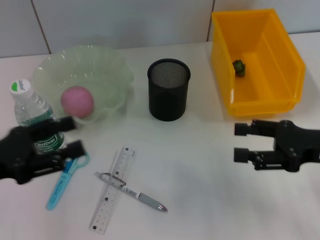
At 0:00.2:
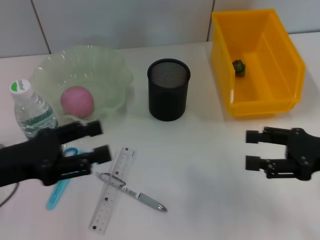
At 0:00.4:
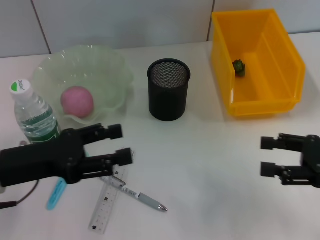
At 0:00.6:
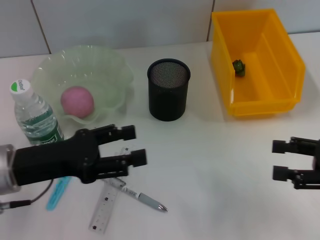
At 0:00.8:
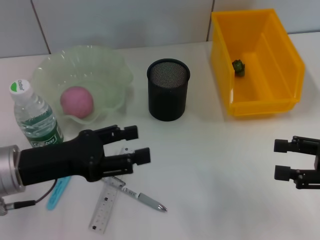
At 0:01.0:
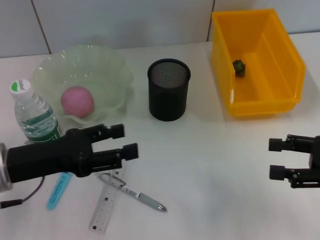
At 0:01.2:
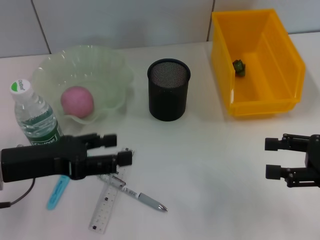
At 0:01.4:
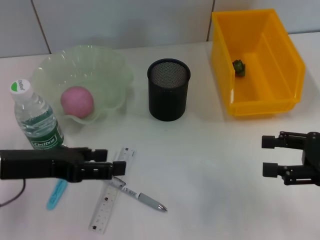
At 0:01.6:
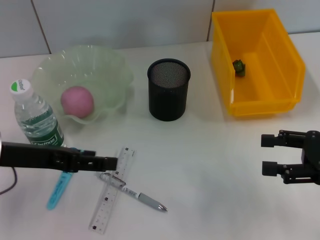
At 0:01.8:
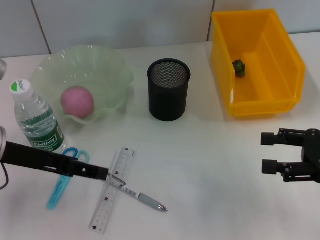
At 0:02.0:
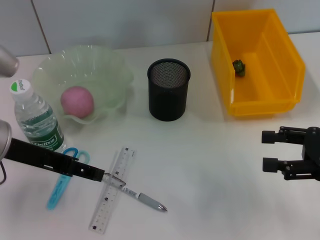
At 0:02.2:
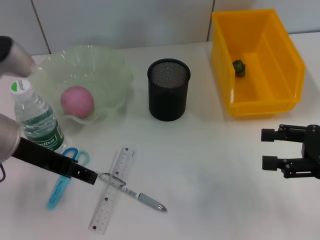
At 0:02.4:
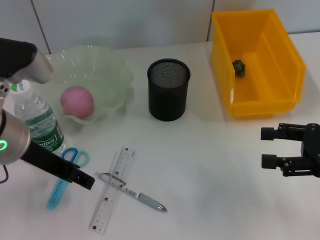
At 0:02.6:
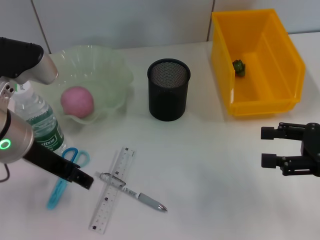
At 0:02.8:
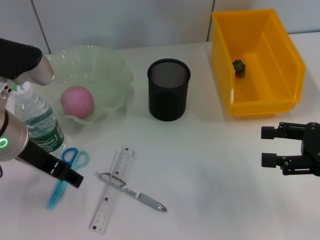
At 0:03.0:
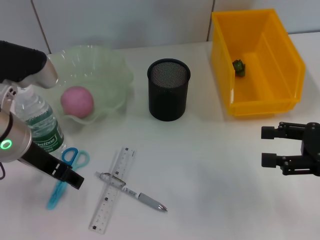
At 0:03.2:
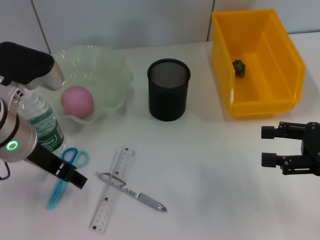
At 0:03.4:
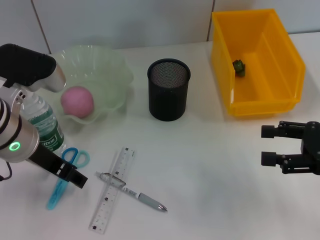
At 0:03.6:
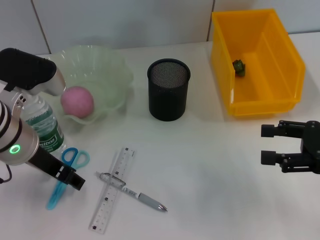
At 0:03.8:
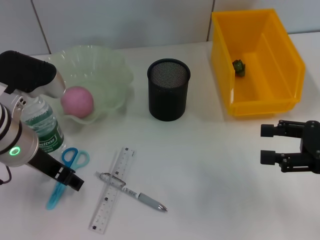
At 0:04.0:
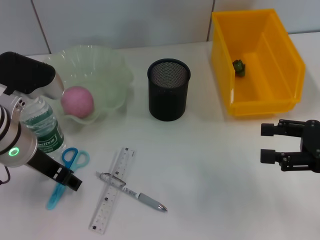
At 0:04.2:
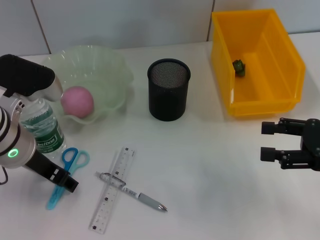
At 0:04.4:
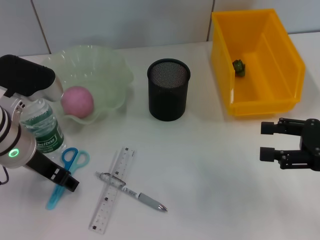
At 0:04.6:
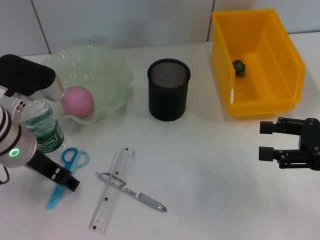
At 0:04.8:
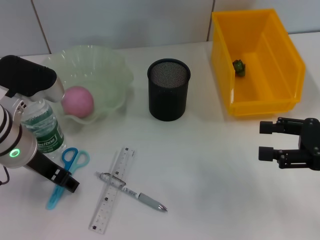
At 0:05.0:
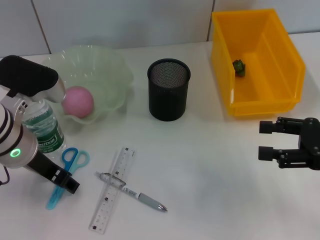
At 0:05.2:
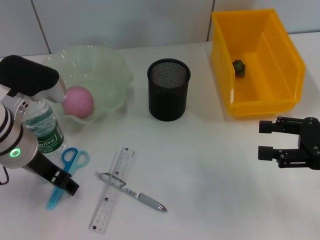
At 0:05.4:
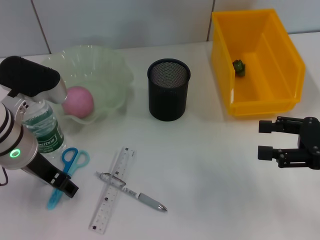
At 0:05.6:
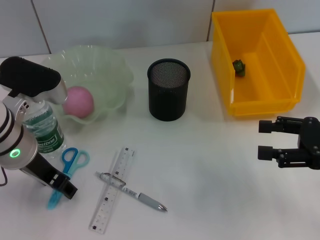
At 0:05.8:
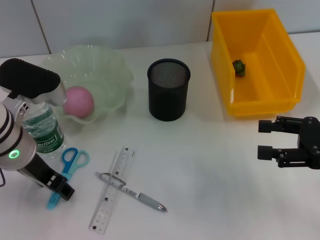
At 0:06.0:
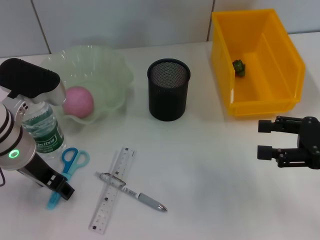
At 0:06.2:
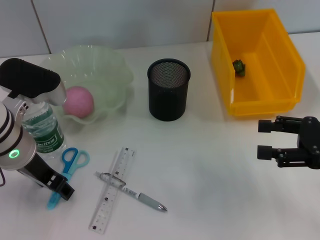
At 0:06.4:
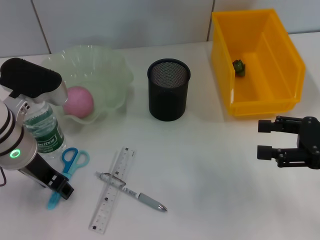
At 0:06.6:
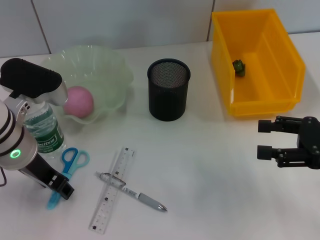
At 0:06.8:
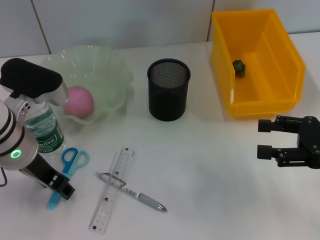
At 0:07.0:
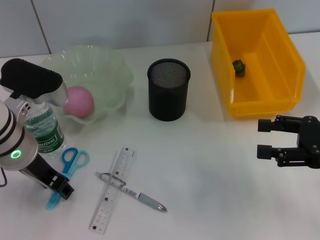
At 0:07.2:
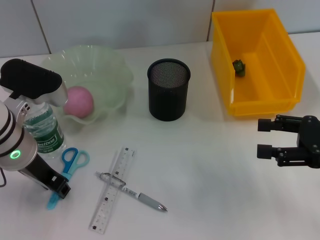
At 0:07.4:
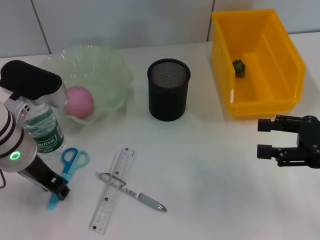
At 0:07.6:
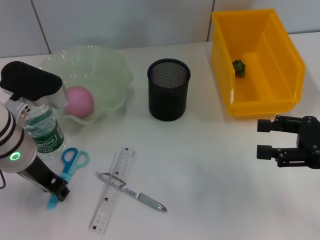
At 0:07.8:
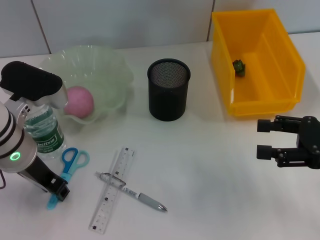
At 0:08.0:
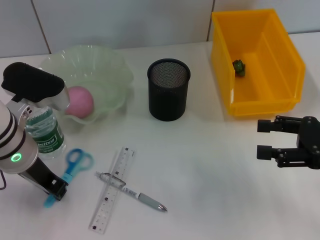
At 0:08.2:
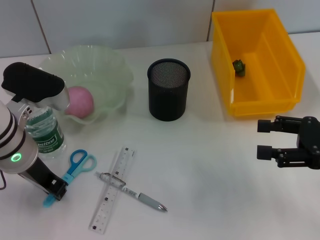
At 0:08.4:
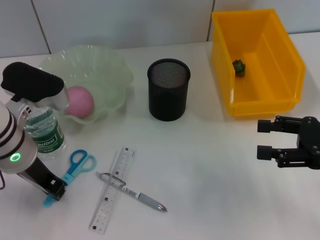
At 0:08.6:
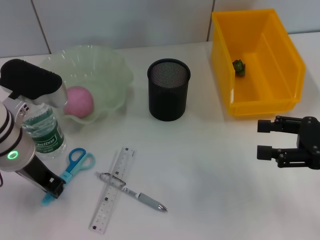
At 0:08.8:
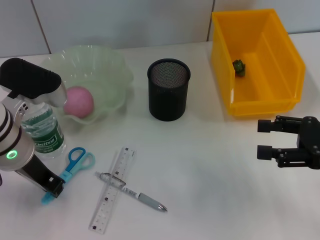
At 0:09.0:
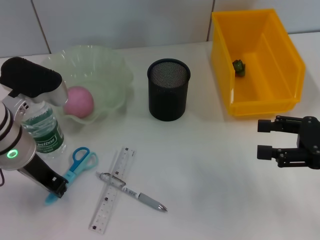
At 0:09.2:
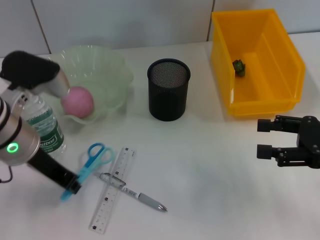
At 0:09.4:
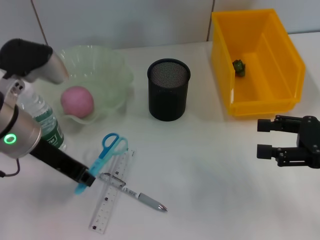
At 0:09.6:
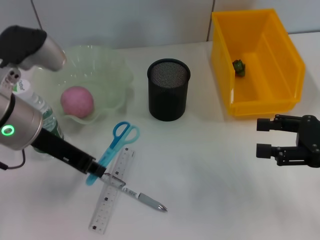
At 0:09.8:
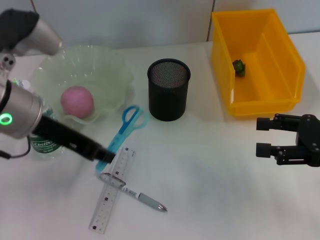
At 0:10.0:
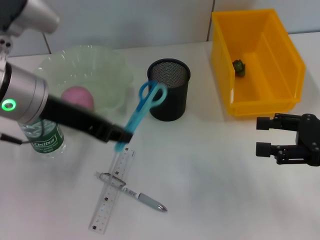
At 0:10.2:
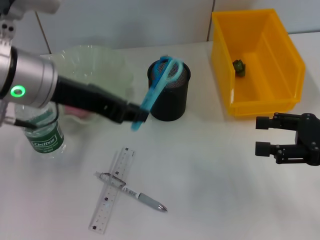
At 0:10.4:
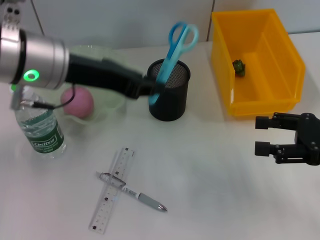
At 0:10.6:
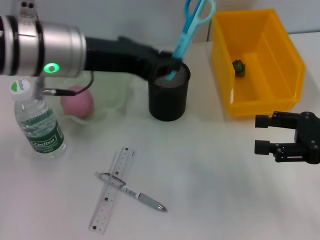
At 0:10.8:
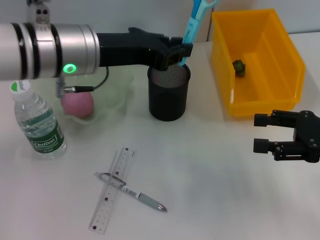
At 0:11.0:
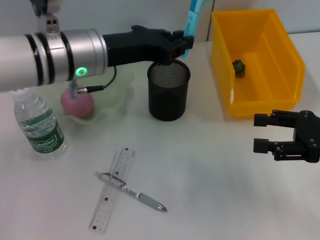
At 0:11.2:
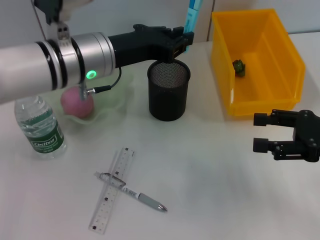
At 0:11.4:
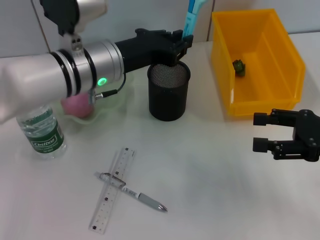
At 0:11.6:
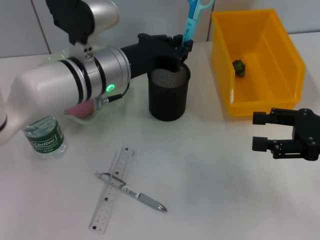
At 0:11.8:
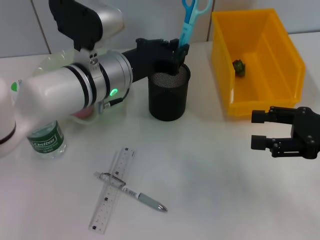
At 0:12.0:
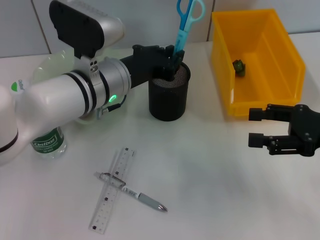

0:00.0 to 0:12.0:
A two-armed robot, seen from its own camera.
Step, 0:00.0 to 0:08.6: Grab the blue scissors with the left hand.
0:00.0 to 0:01.6: The left gripper is displaced to the right by about 5 cm.
0:01.6 to 0:03.0: The left gripper moves about 5 cm.
0:03.0 to 0:04.4: The grippers move only a little.
0:04.4 to 0:06.0: Both grippers stay put.
0:06.0 to 0:07.6: The left gripper closes.
0:07.6 to 0:09.0: Neither gripper changes place.
0:09.0 to 0:10.4: The left gripper is displaced upward by roughly 10 cm.
0:10.4 to 0:12.0: The left gripper moves downward and to the right, some 10 cm.

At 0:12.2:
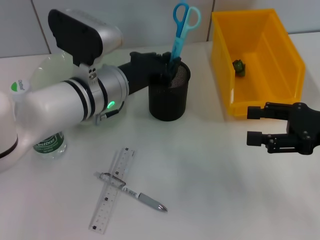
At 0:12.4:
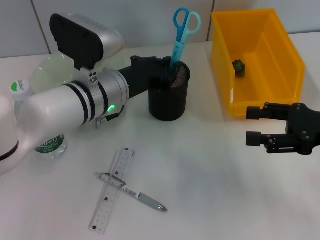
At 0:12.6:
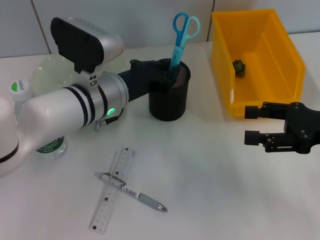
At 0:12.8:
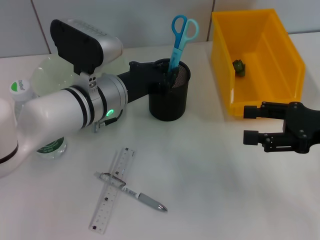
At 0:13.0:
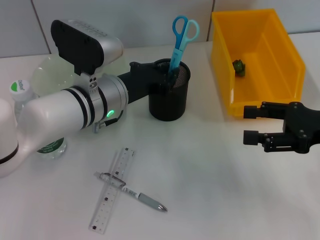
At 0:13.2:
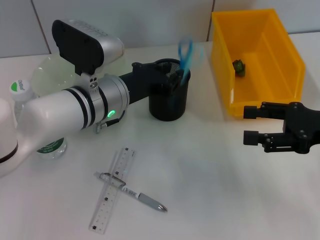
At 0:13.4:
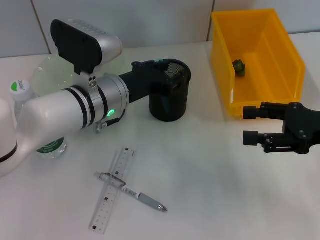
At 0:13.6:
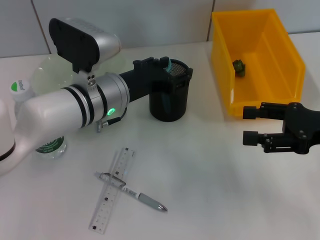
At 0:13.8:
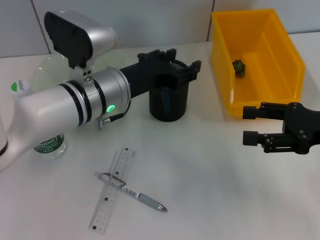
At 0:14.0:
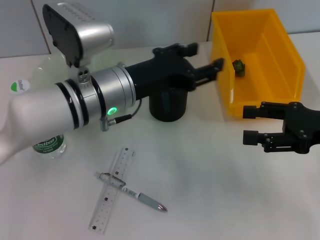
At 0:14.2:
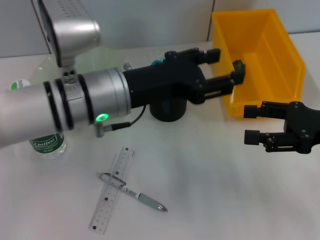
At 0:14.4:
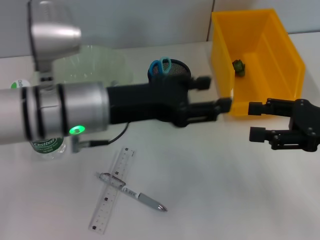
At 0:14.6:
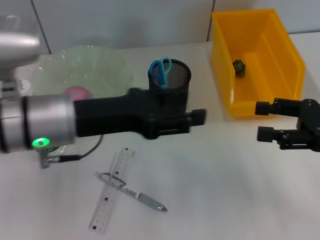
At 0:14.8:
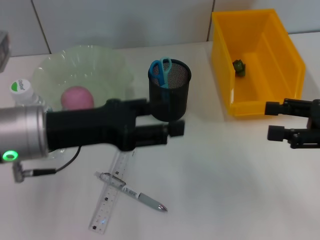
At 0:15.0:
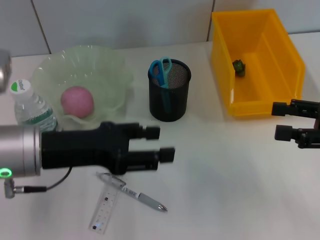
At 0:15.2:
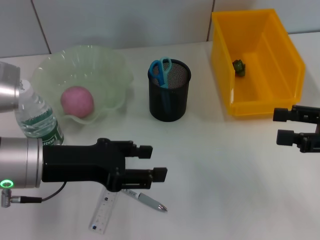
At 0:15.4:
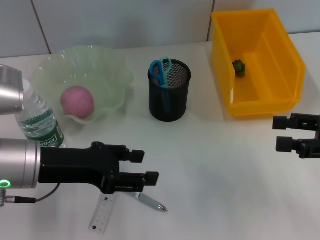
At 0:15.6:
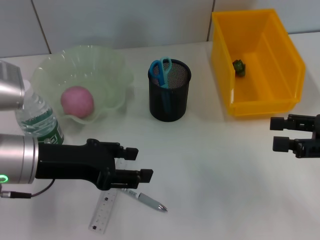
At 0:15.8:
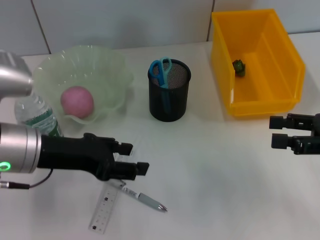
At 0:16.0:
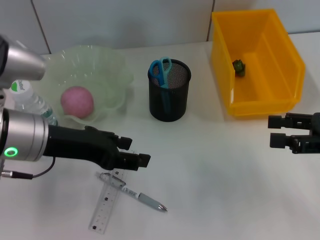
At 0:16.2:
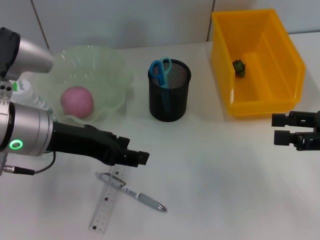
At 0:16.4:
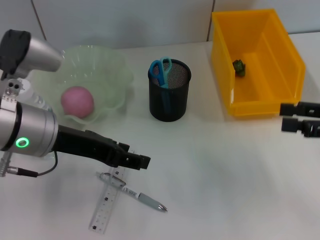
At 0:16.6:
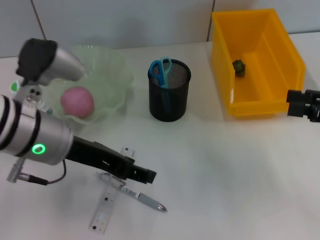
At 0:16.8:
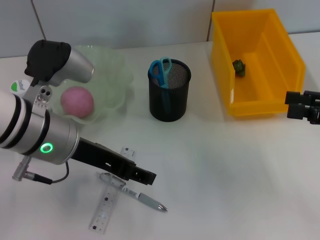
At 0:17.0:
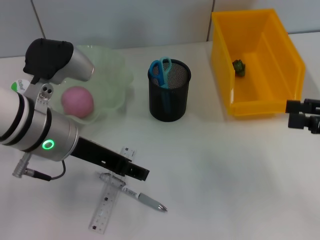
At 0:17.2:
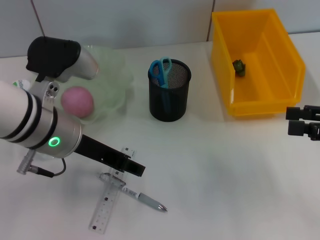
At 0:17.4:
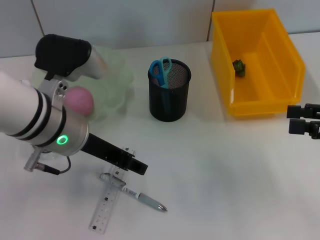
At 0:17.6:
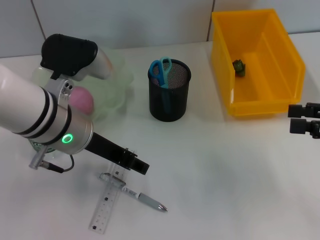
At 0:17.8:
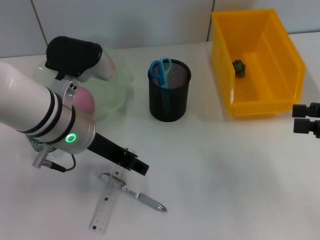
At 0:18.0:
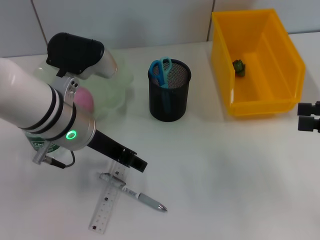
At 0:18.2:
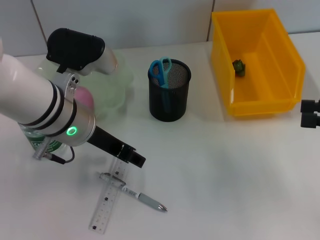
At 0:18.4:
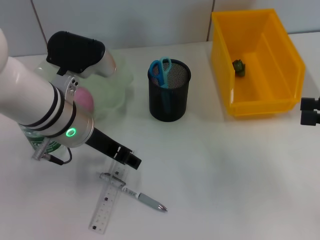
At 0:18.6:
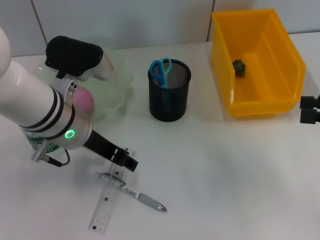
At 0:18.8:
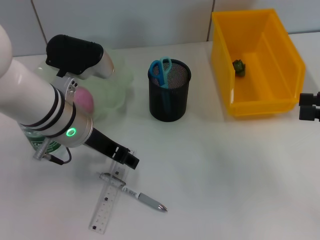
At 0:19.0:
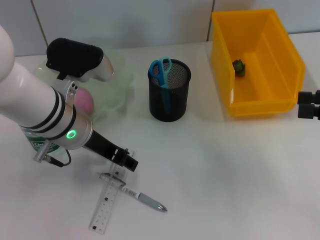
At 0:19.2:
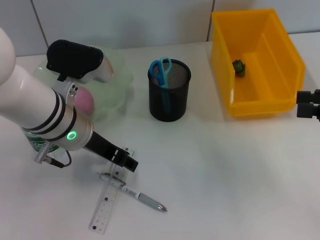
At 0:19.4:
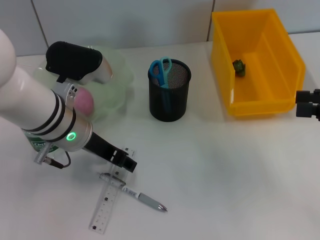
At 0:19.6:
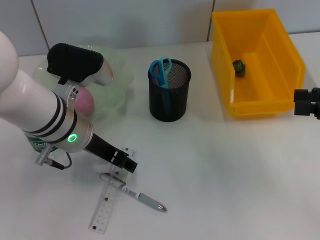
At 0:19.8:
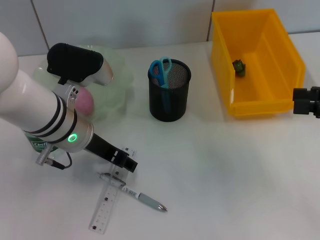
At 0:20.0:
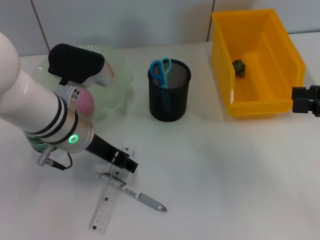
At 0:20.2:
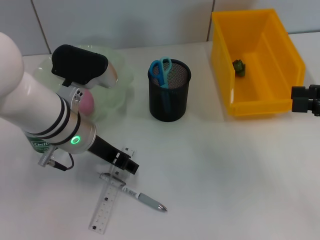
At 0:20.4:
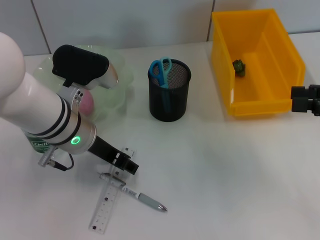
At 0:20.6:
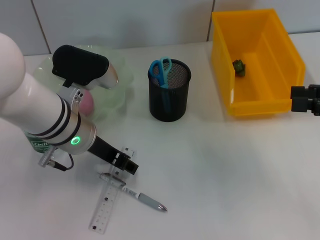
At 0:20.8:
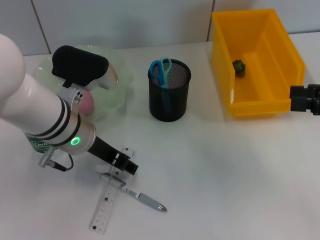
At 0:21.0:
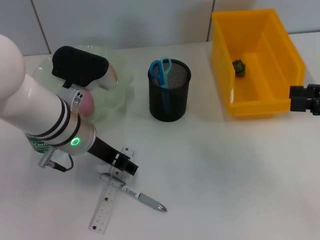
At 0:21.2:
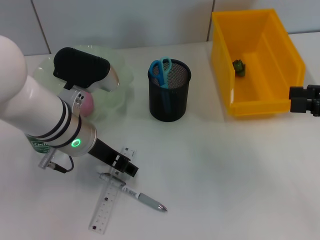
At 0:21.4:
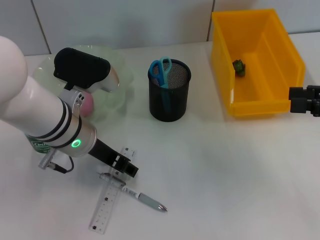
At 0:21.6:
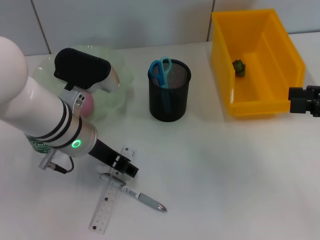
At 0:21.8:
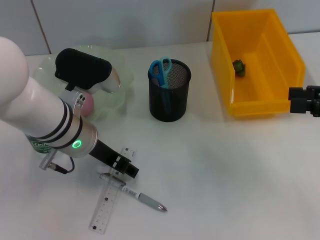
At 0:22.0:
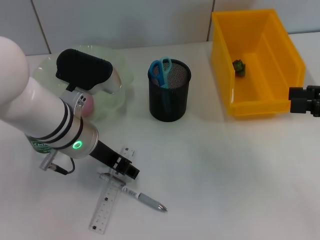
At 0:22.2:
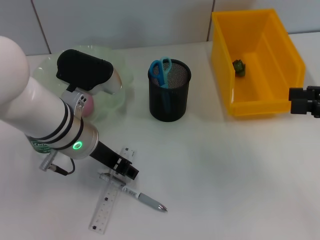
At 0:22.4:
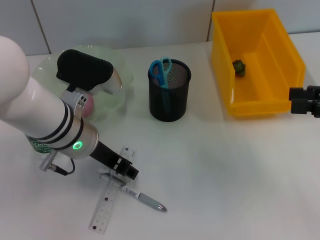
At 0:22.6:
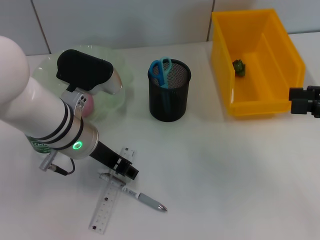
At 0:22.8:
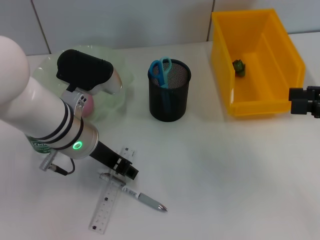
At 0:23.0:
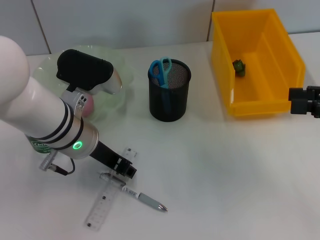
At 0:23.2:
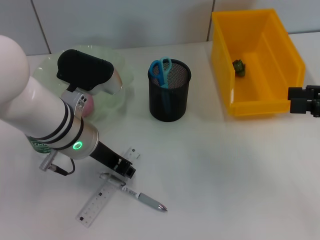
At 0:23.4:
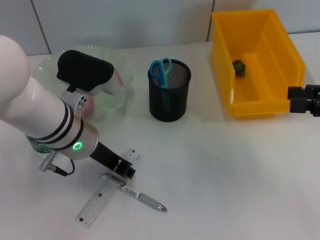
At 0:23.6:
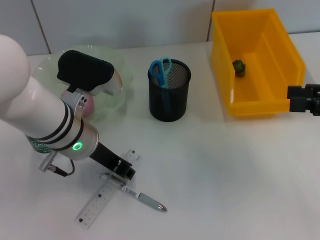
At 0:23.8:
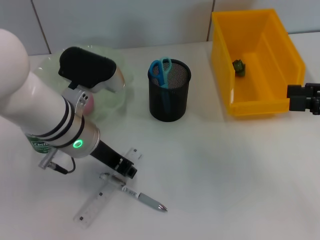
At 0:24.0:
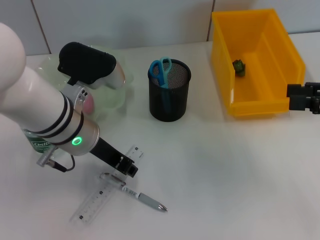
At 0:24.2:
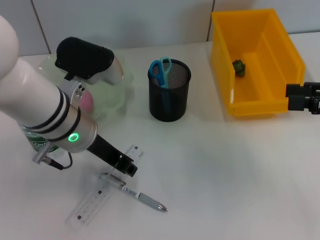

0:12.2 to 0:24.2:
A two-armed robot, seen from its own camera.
Step, 0:13.4 to 0:23.6: Grab the ruler with the left hand.
0:12.2 to 0:13.8: The left gripper opens up.
0:13.8 to 0:15.2: The left gripper moves to the left and backward, some 15 cm.
0:15.2 to 0:16.6: The left gripper moves some 5 cm.
0:16.6 to 0:18.2: The grippers move only a little.
0:18.2 to 0:19.8: The grippers move only a little.
0:19.8 to 0:22.6: The two grippers keep their place.
0:22.6 to 0:24.2: The grippers move only a little.
